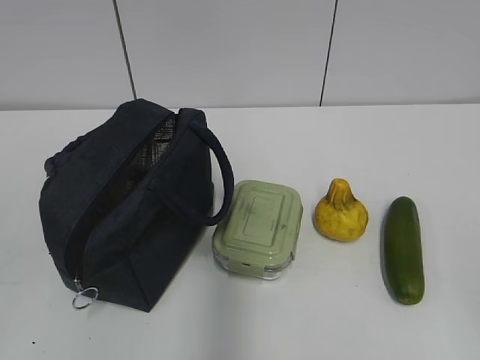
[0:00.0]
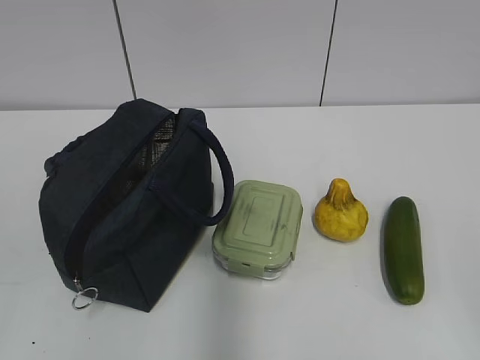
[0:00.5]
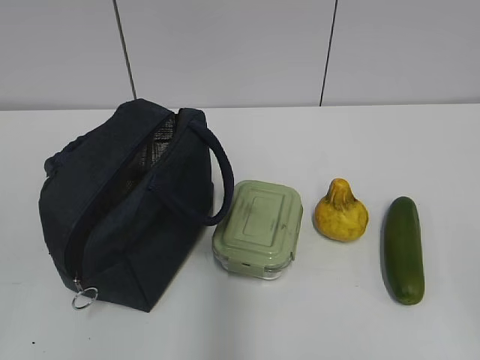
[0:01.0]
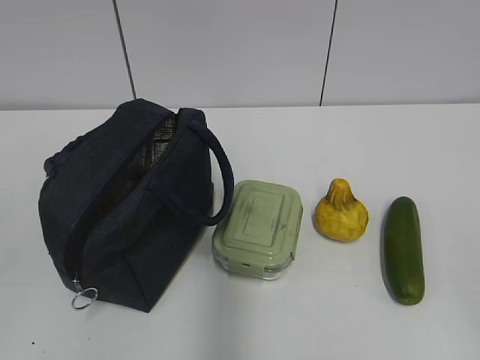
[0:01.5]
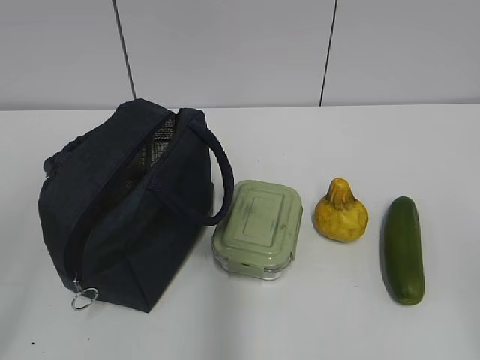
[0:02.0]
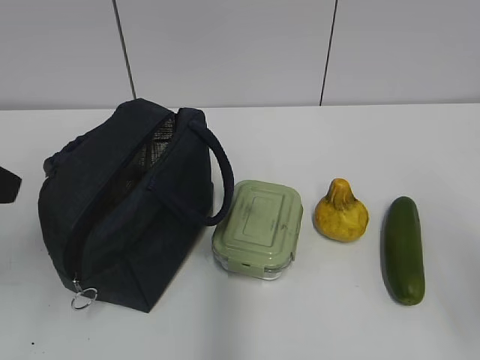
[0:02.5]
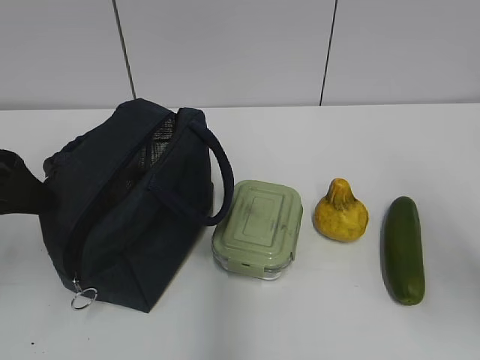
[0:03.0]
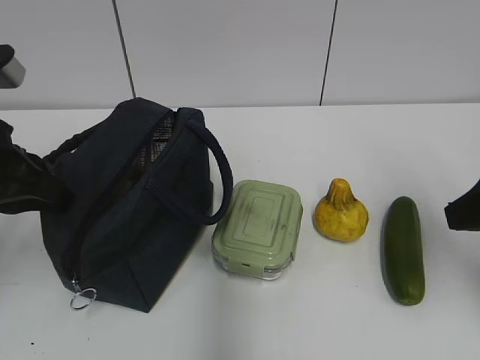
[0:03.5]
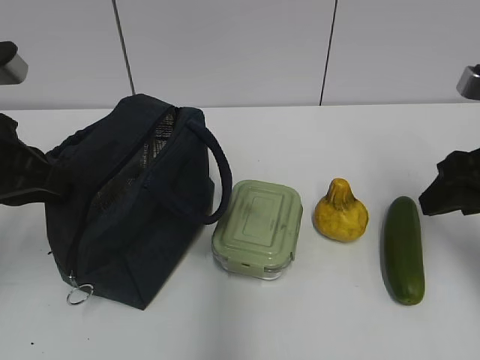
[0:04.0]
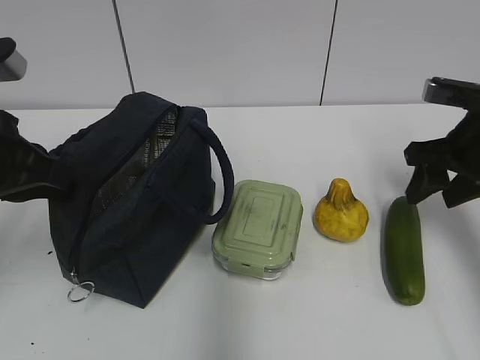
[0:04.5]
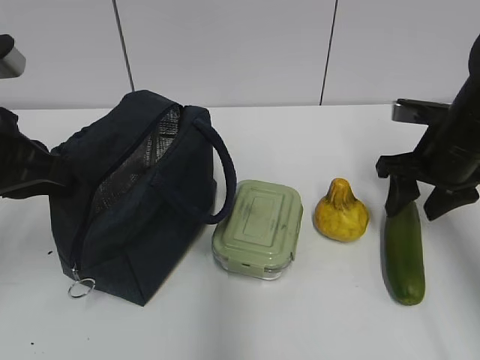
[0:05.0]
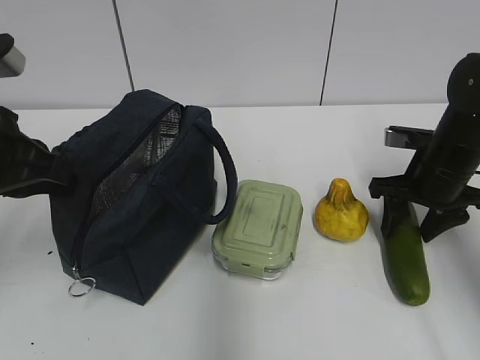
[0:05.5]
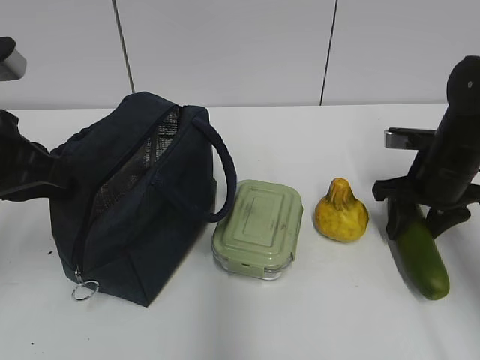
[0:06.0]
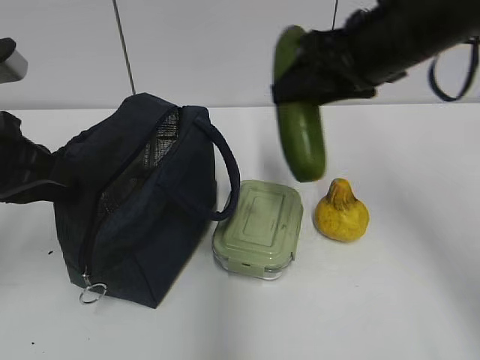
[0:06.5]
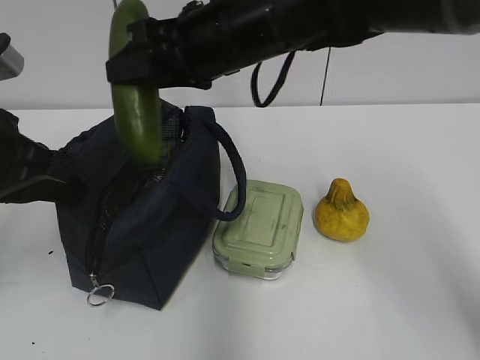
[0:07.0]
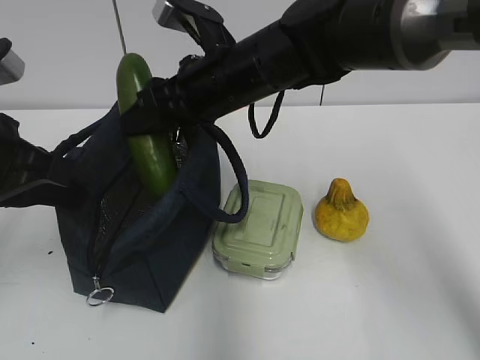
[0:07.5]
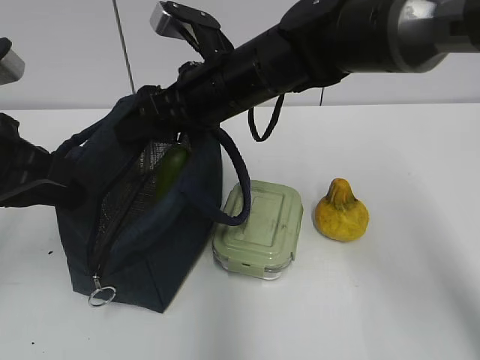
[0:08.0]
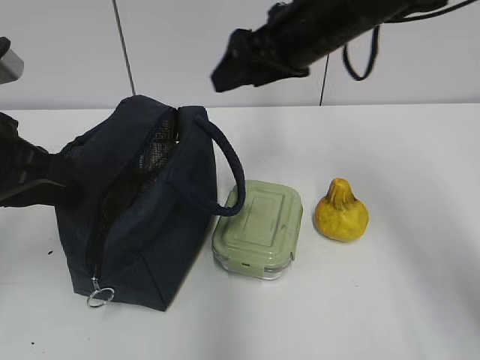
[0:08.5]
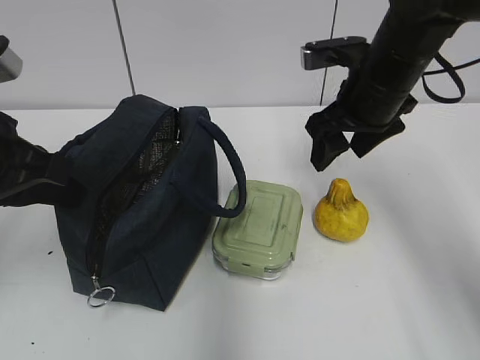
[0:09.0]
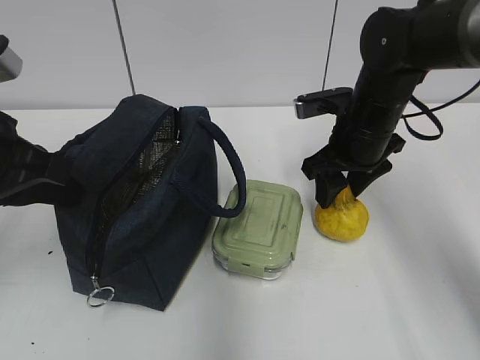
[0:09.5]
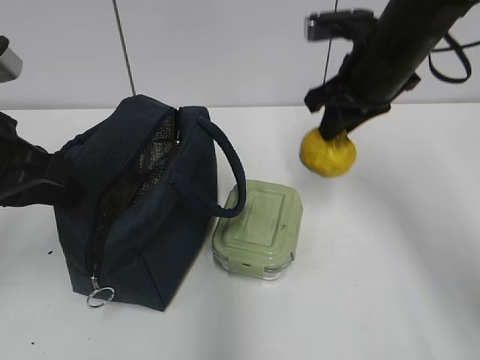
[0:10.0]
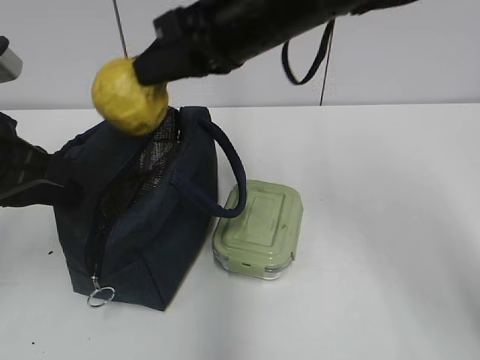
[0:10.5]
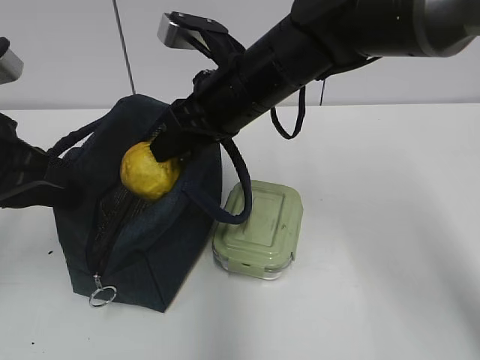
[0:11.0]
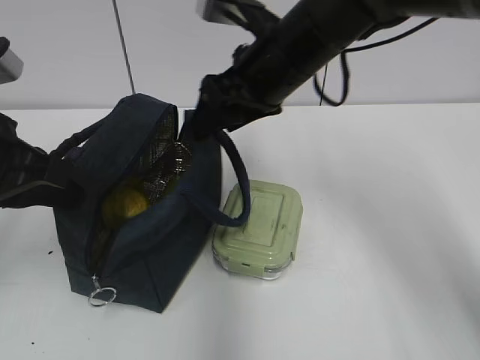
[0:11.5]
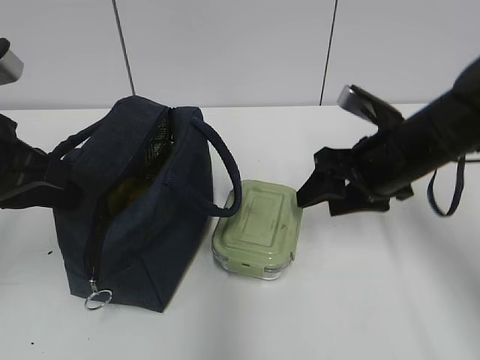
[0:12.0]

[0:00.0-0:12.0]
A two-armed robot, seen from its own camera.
Step, 0:00.0 to 0:05.5: Grab the cucumber with your right hand.
Step, 0:07.5 to 0:08.0: Place it into the bag with your right hand.
Step, 0:08.5 to 0:09.5: Grab the pear with your right hand.
Step, 0:10.0 to 0:11.0: Place it into the bag with your right hand.
0:02.0 to 0:04.0: Both grippers travel together forward, some 20 cm. The left gripper closes up.
0:04.0 to 0:06.0: The right gripper shifts about 15 cm forward and downward.
0:06.0 to 0:08.0: The right gripper is displaced to the left and upward by some 25 cm.
0:08.0 to 0:10.0: The right gripper heads to the right, covering roughly 15 cm, and closes up.
0:10.0 to 0:12.0: The right gripper heads downward, covering approximately 10 cm, travels to the left and back again, about 15 cm each way, and opens.

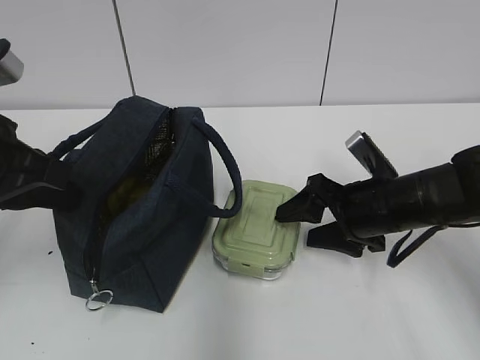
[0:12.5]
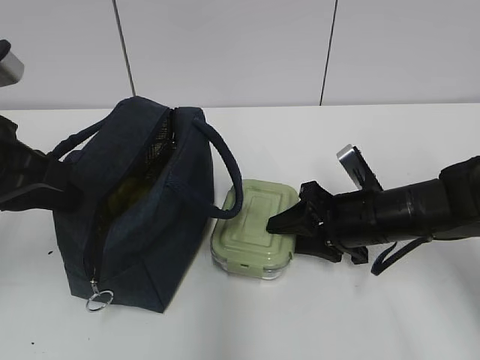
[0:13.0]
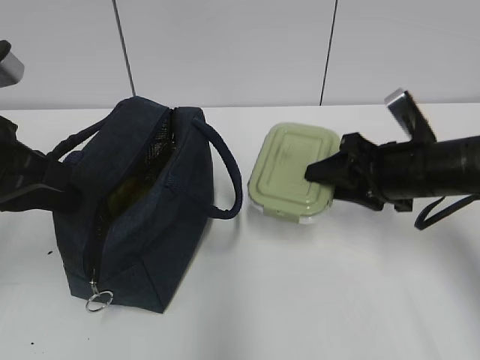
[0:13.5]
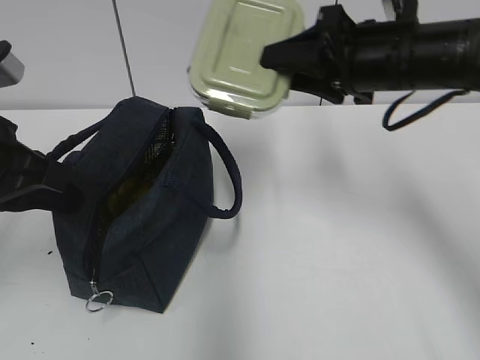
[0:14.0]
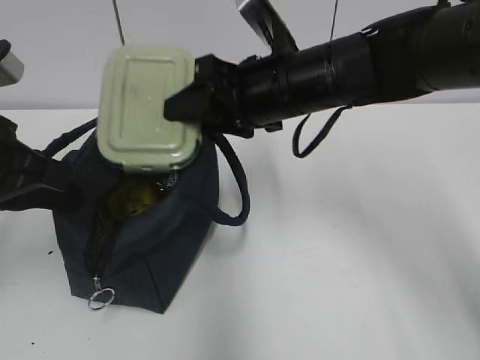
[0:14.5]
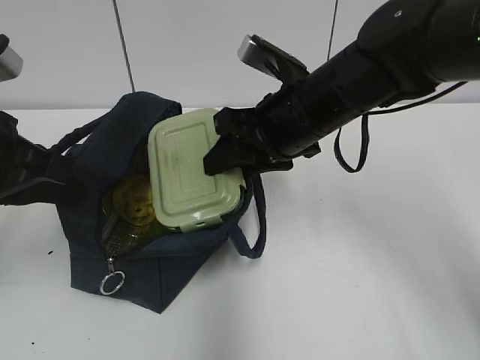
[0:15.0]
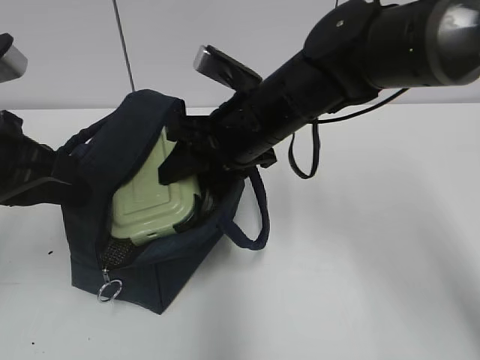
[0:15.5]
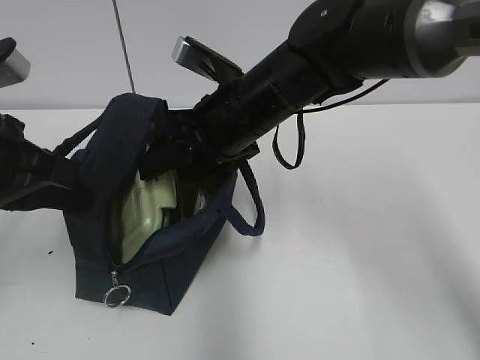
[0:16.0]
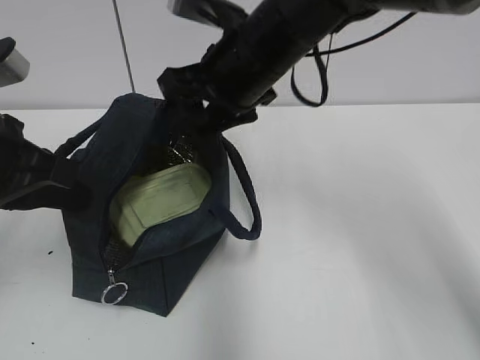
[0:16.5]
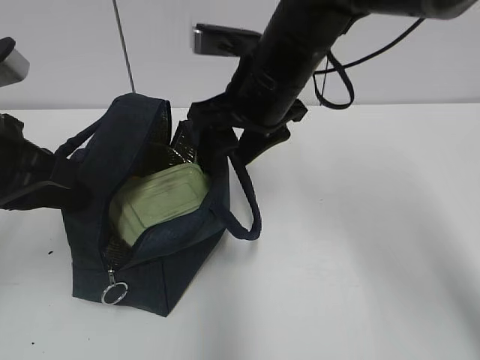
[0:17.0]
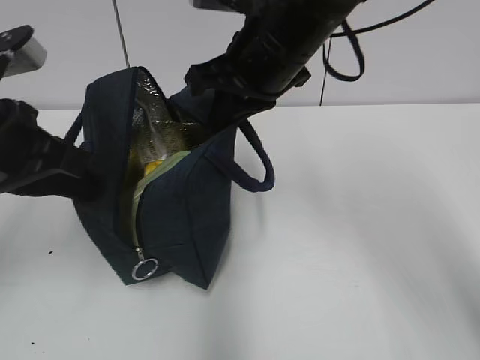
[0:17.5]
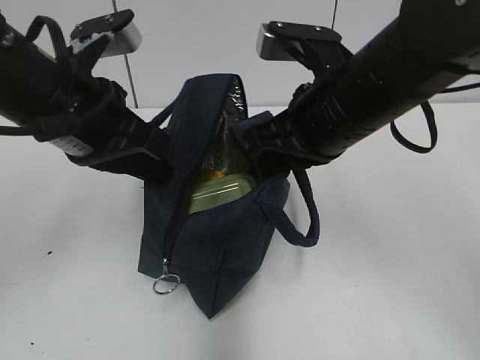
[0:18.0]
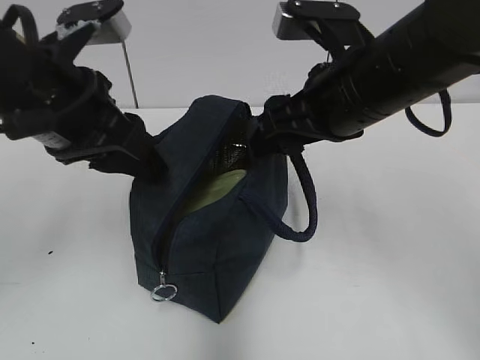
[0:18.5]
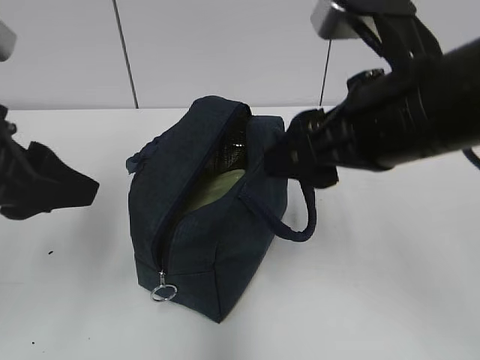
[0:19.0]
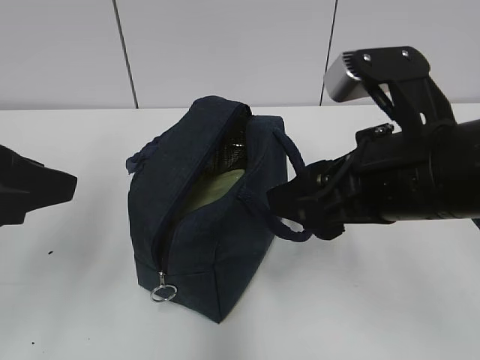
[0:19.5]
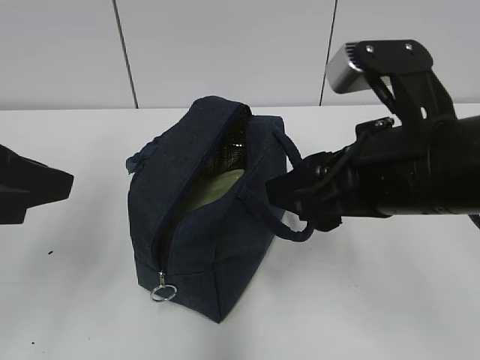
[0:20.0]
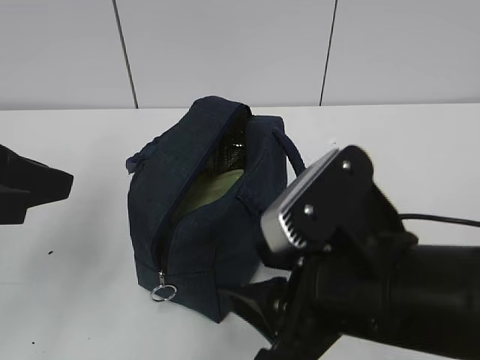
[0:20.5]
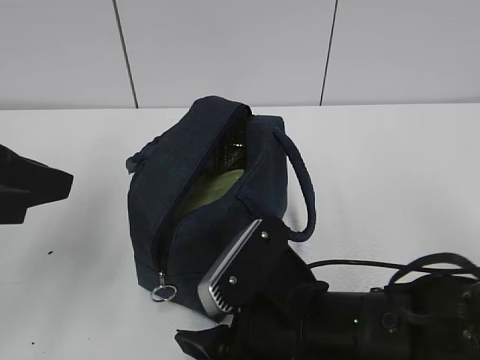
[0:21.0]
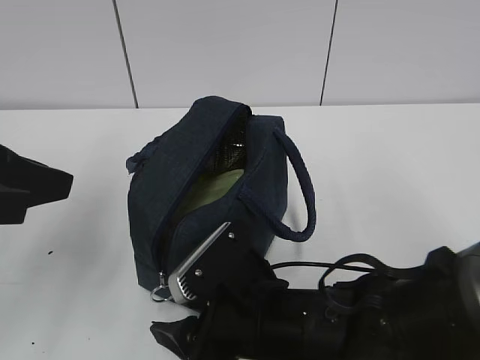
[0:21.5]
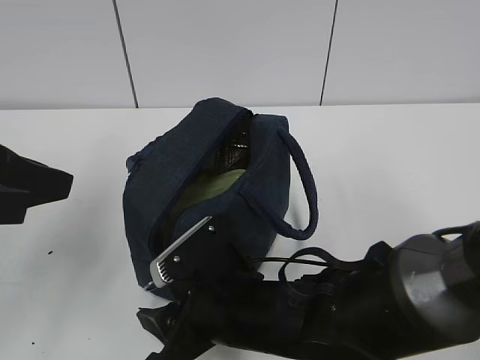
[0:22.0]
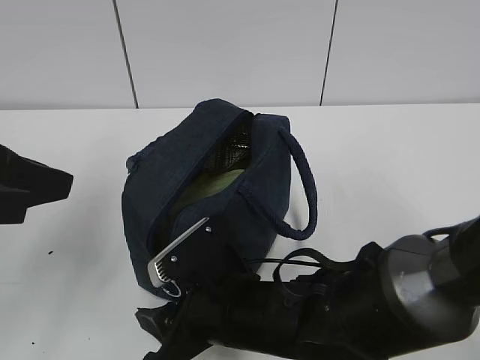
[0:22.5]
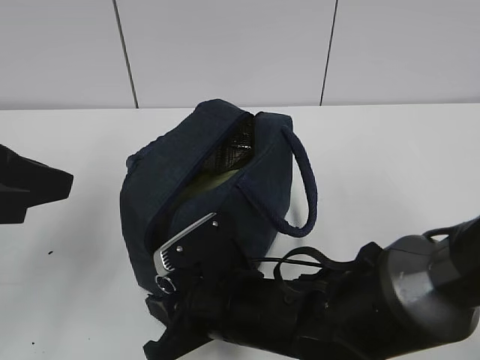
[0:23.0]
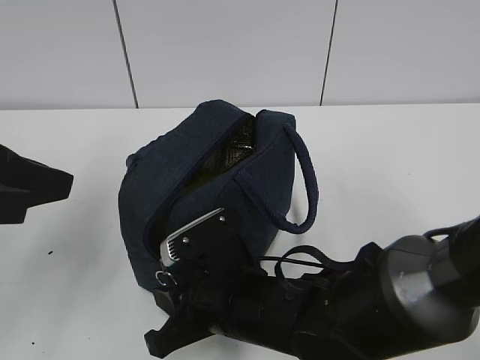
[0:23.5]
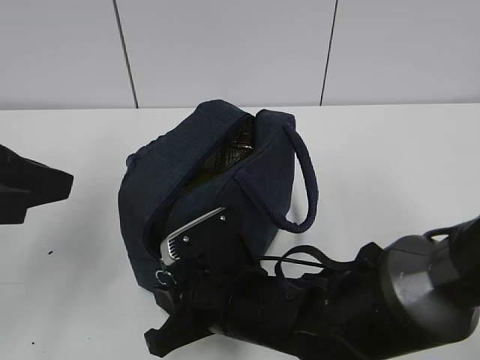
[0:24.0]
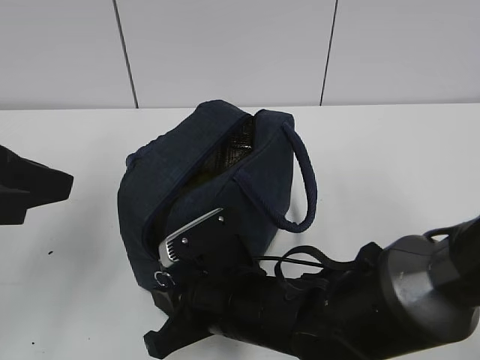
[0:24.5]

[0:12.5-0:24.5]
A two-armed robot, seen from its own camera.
Step, 0:16.5 to 0:17.0: Grab the lunch bag with your right hand.
Step, 0:17.5 to 0:18.5: Move the lunch bag to the right.
0:12.5 to 0:14.5: The right gripper heads upward and to the left, covering approximately 15 cm, and closes its fingers.
0:16.5 to 0:18.5: The right gripper goes roughly 10 cm to the right and backward, and closes, then reopens, while the left gripper is displaced to the right by roughly 5 cm, and opens its fingers.
0:18.5 to 0:20.5: The left gripper is displaced backward and to the left by roughly 10 cm, while the right gripper shifts some 15 cm backward and downward.
0:20.5 to 0:22.5: The right gripper travels downward, to the left and forward by roughly 15 cm.
0:22.5 to 0:24.5: The right gripper closes up.

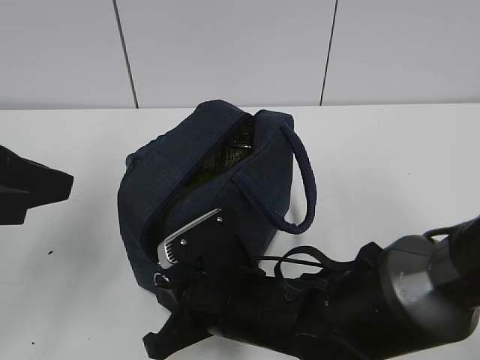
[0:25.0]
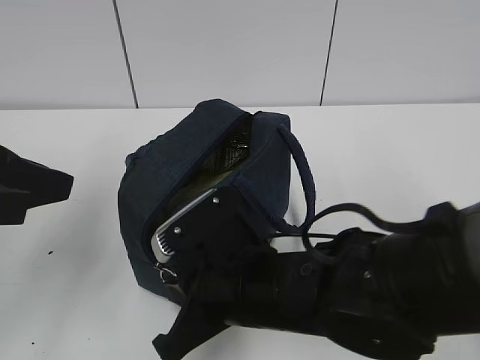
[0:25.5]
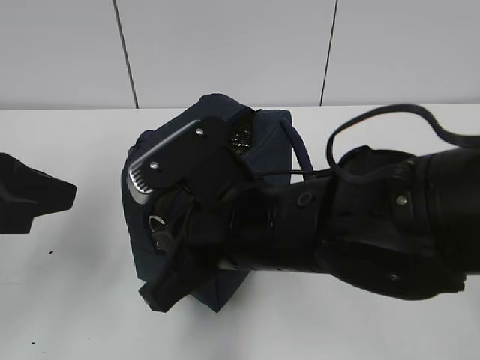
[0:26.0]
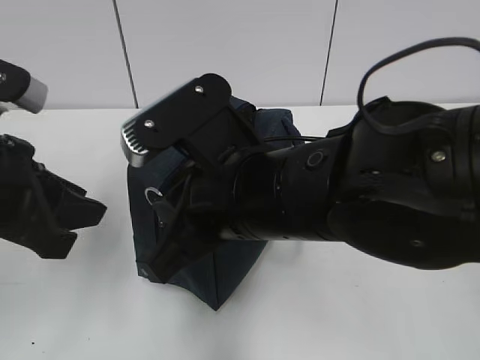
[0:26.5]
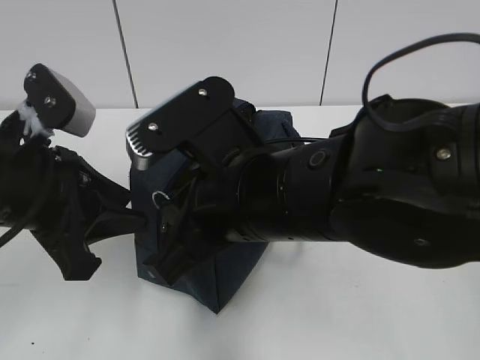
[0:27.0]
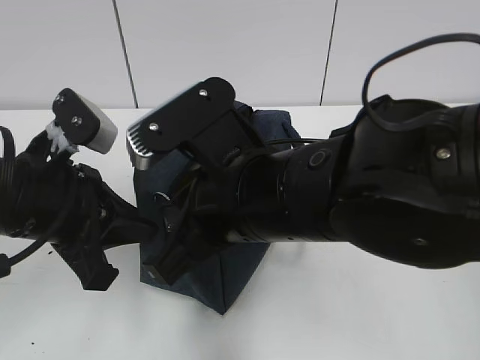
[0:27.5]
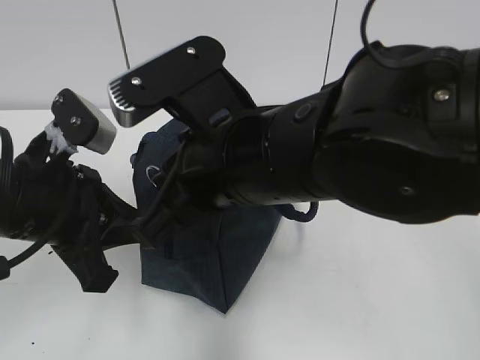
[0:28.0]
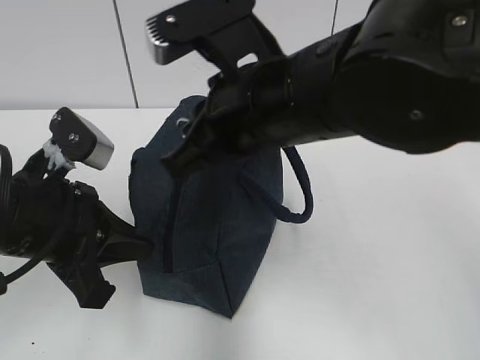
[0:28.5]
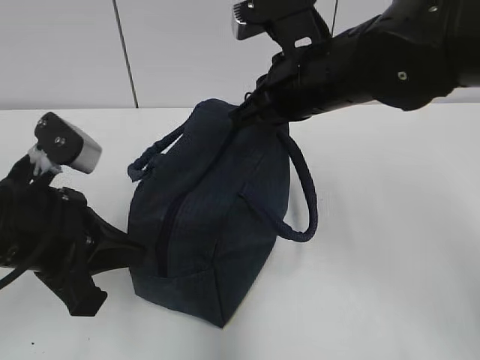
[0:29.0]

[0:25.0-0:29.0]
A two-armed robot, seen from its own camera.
0:25.0 to 0:27.0: The right gripper travels upward by about 15 cm, while the left gripper travels downward by approximately 5 cm.
0:27.0 to 0:29.0: The left gripper closes up, while the right gripper travels forward and to the right by about 15 cm.
